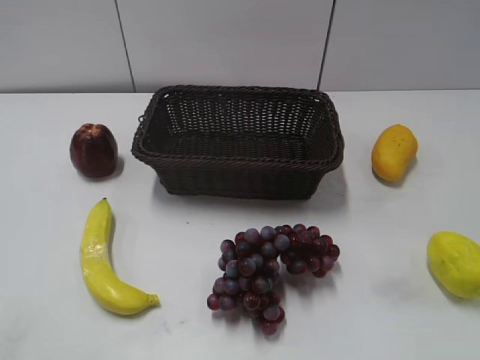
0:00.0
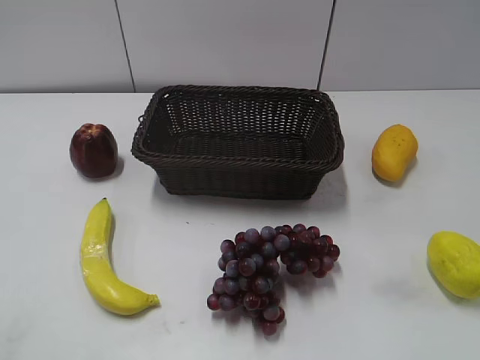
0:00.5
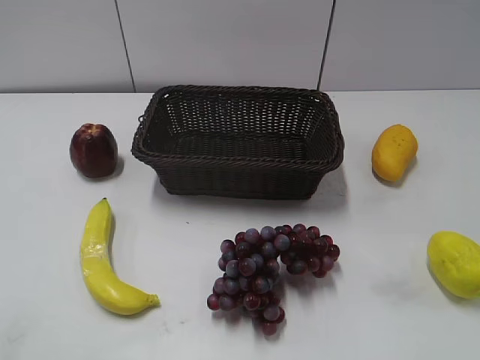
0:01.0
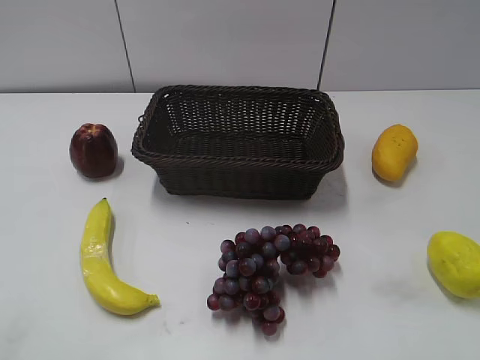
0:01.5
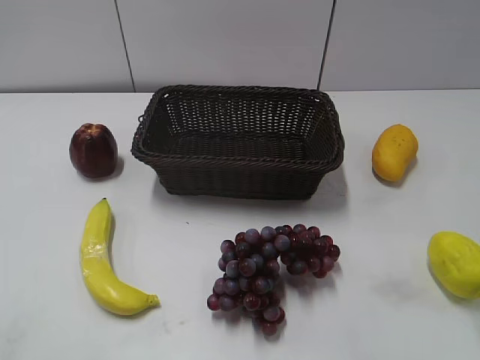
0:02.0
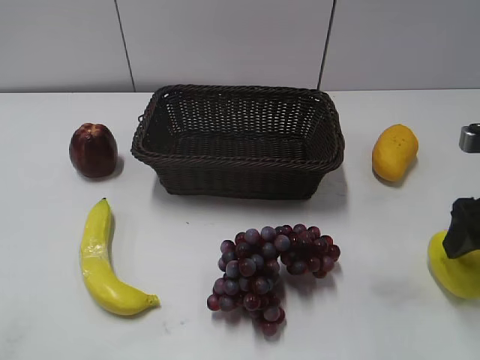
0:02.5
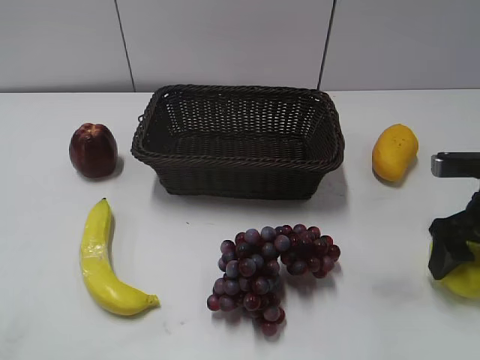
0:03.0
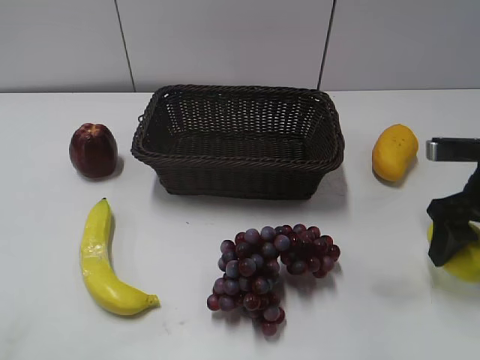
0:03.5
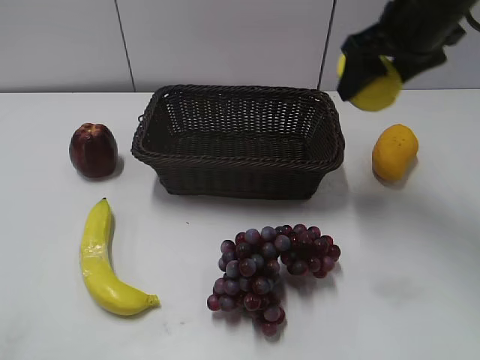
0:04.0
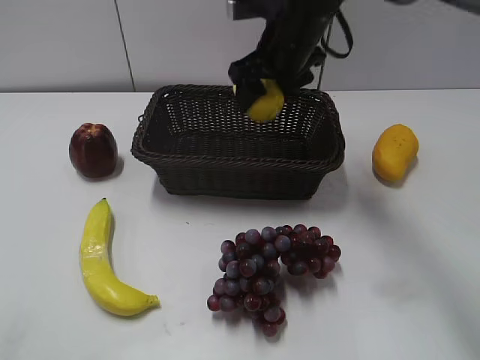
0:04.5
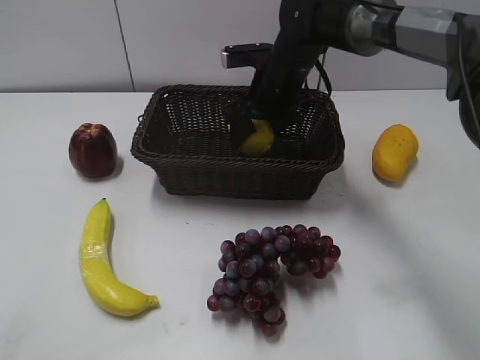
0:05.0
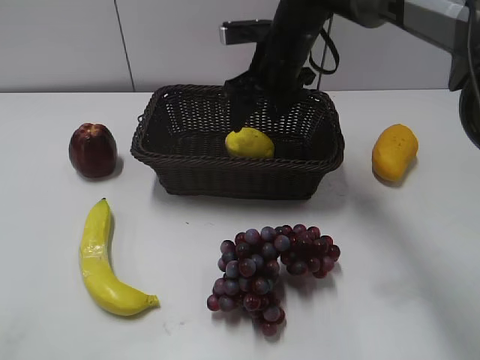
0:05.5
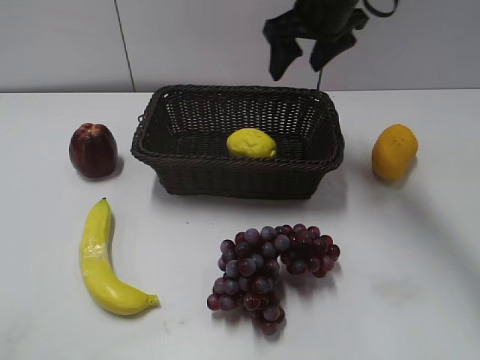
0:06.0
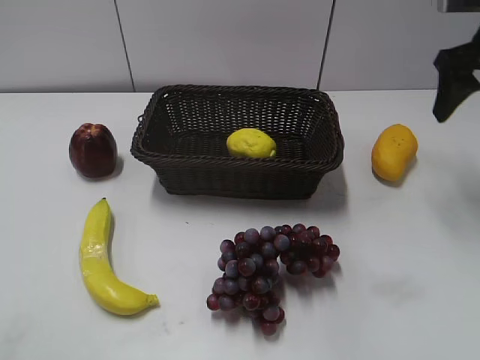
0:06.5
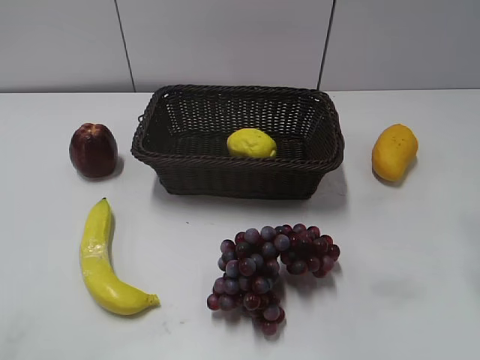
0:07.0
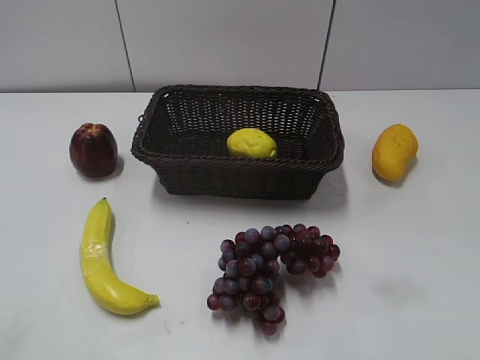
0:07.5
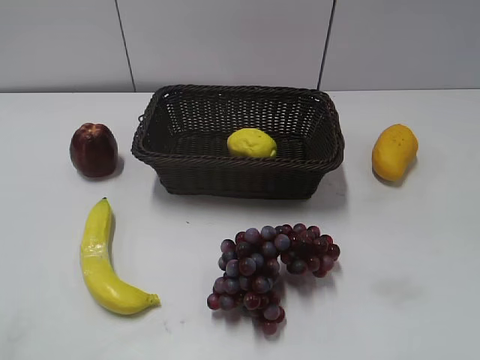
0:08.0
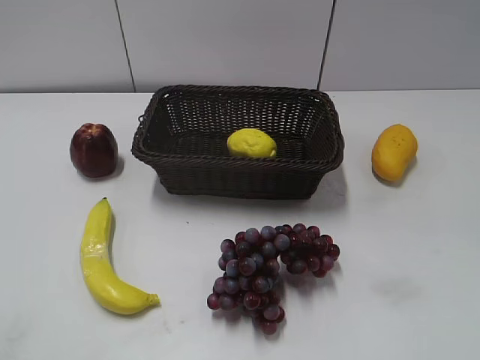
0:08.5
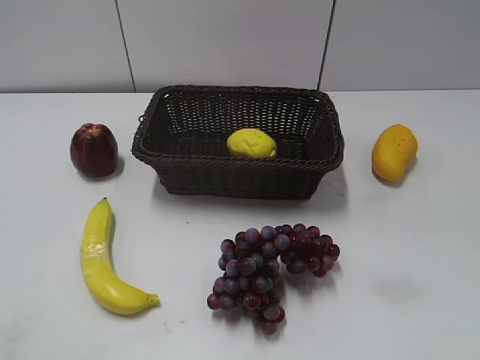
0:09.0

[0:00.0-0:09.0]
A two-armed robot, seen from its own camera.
Step, 0:02.5 to 0:03.0: Grasp the lemon with right gripper.
Step, 0:03.5 to 0:05.0: Place the lemon in the basket with right gripper.
0:02.0 to 0:04.5: The right gripper is displaced forward and to the left by about 35 cm, and opens and closes again.
0:04.5 to 0:07.0: The right gripper goes approximately 30 cm to the right and backward.
